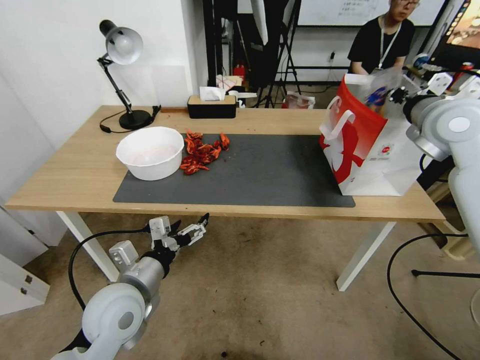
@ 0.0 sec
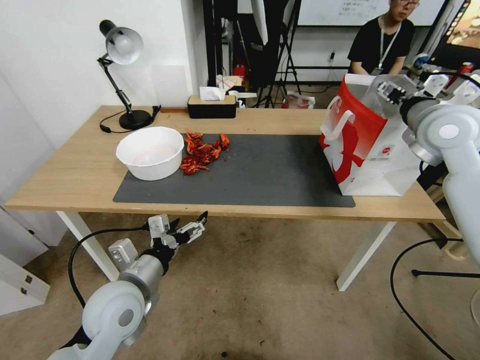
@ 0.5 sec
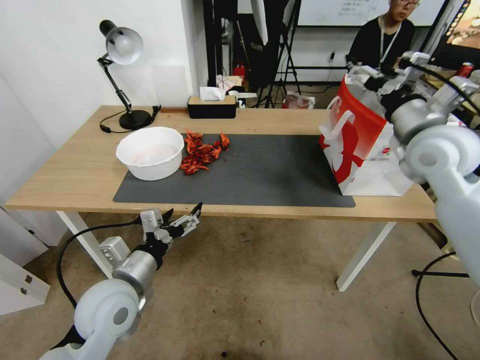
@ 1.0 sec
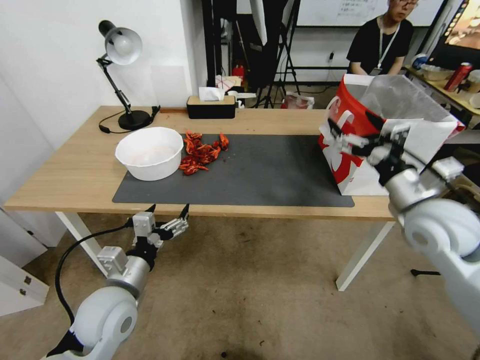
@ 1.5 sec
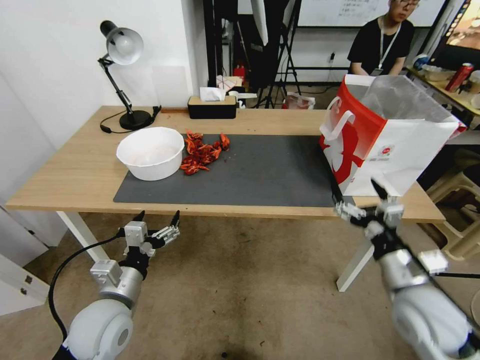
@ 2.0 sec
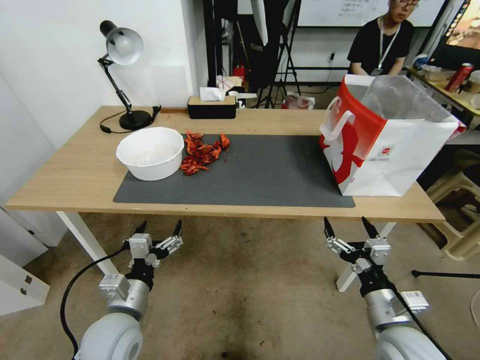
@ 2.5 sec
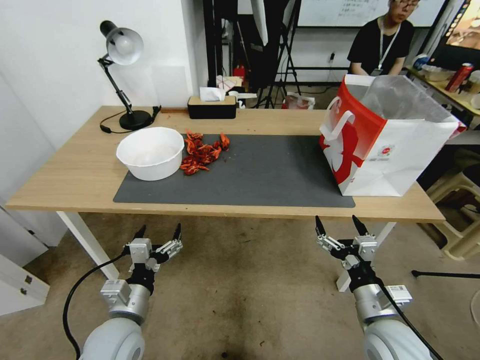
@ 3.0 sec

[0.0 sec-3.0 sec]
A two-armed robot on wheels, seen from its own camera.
Task of the whole recording: Close the takeout container lid, then place the container into the takeout bag.
0.0 sec to 1.5 sec: The right gripper heads downward and backward, covering approximately 15 cm, and opens its fingers.
1.5 sec to 3.0 sec: The right gripper moves downward and backward, about 25 cm; the left gripper heads downward, covering roughly 5 cm.

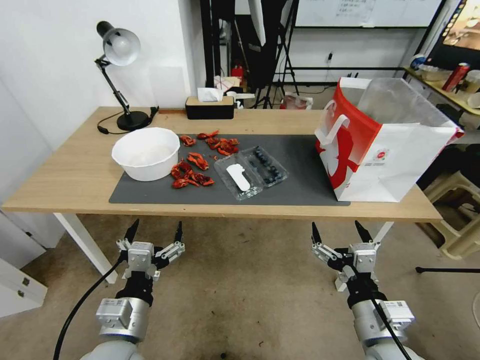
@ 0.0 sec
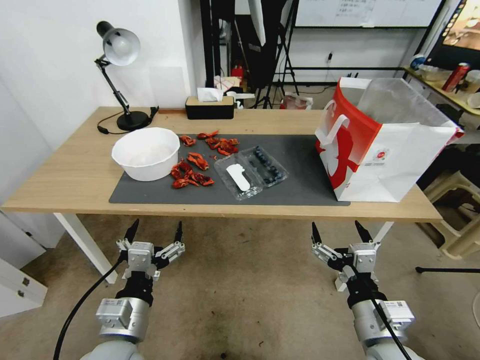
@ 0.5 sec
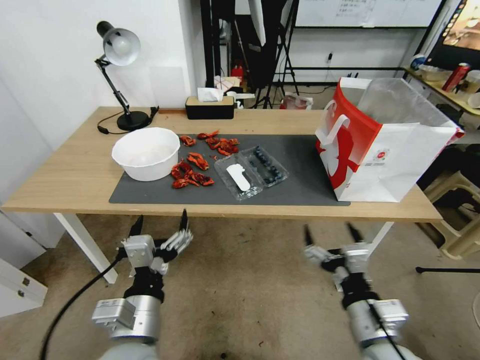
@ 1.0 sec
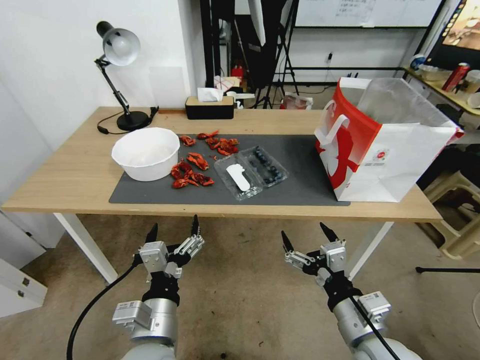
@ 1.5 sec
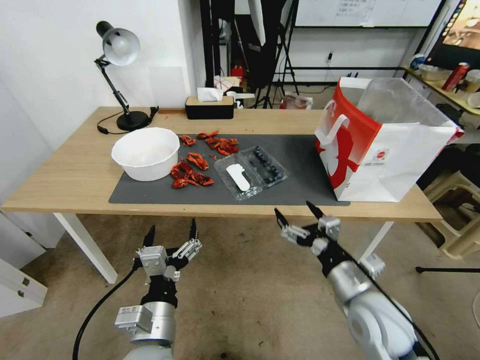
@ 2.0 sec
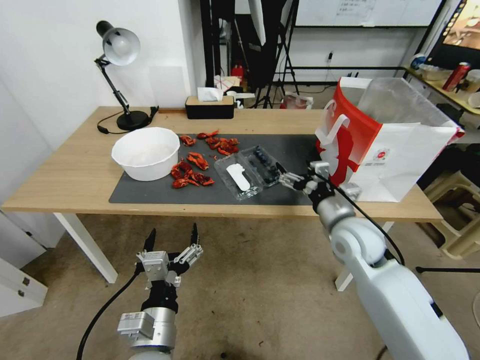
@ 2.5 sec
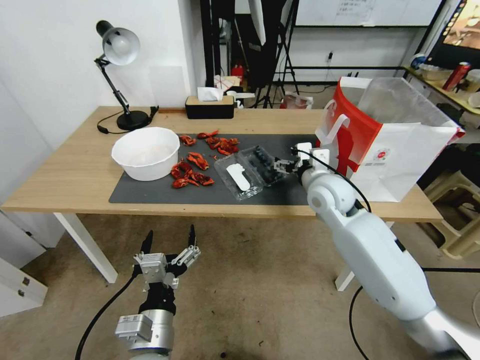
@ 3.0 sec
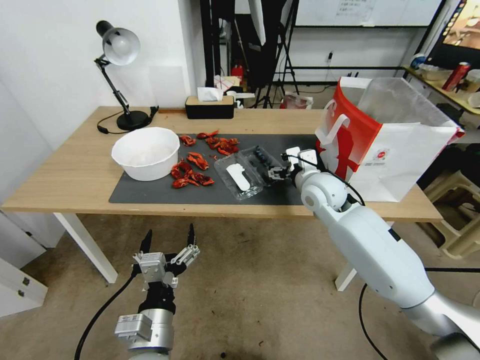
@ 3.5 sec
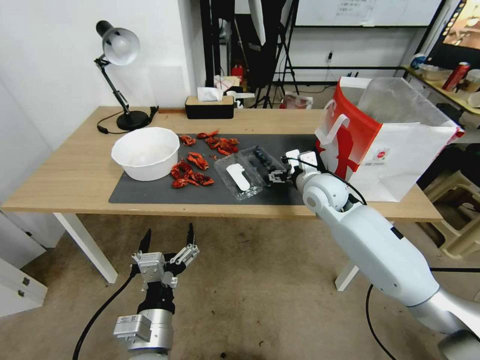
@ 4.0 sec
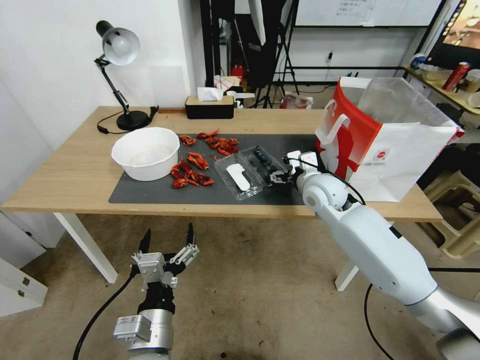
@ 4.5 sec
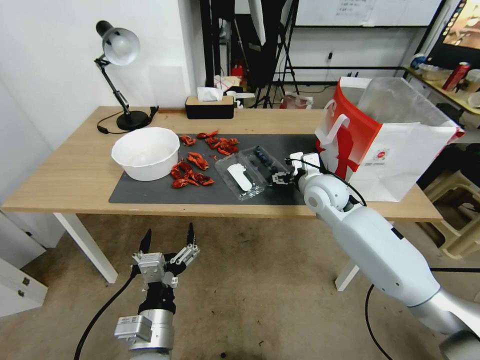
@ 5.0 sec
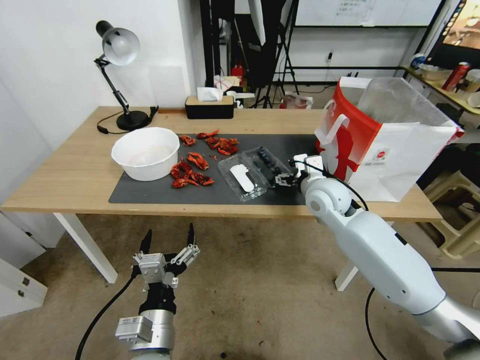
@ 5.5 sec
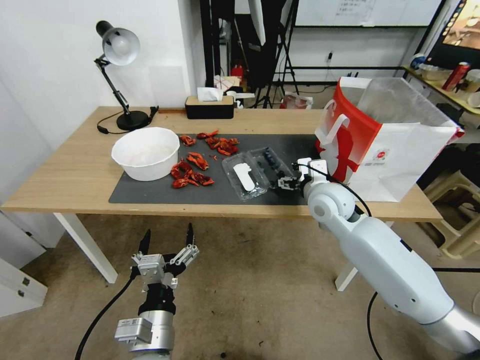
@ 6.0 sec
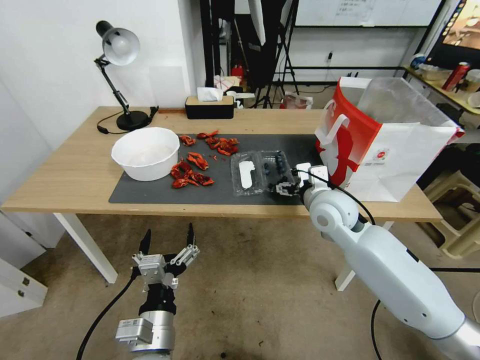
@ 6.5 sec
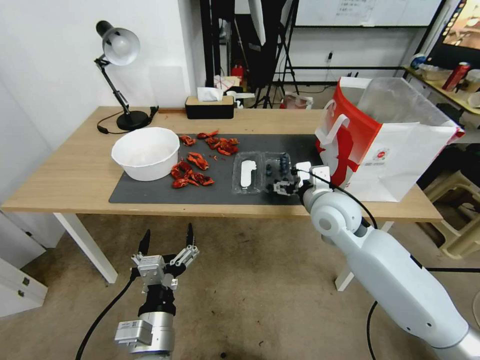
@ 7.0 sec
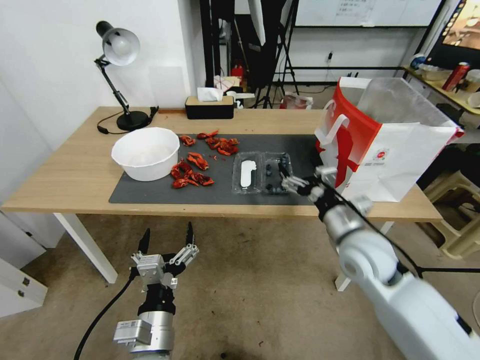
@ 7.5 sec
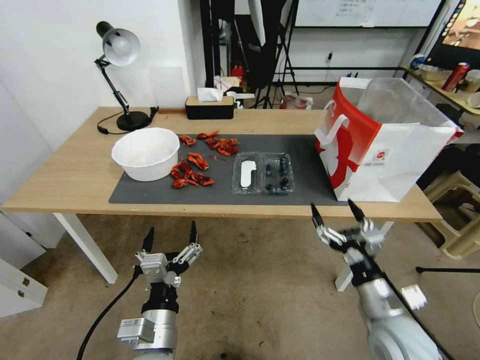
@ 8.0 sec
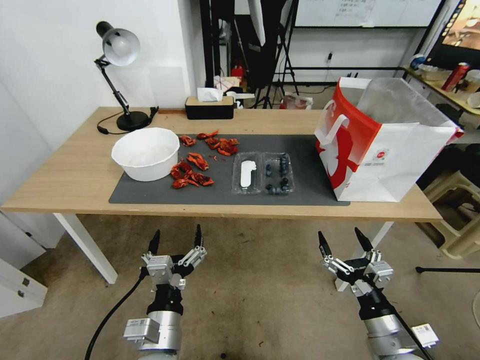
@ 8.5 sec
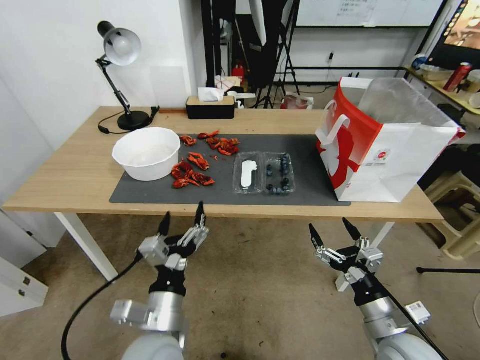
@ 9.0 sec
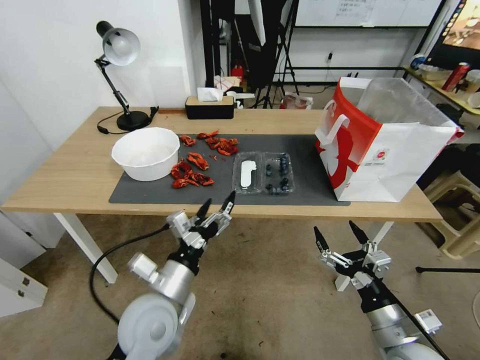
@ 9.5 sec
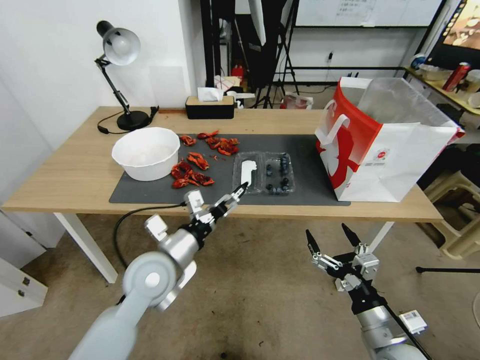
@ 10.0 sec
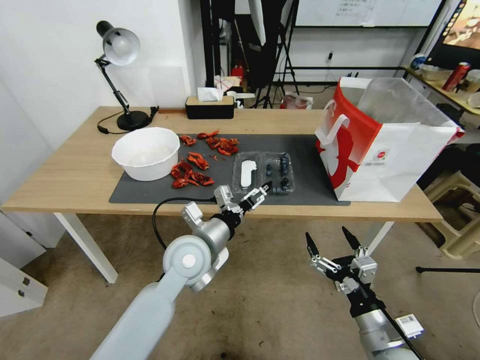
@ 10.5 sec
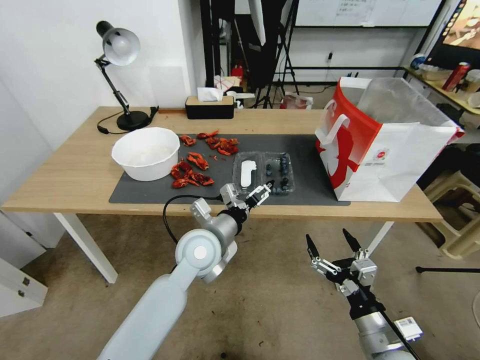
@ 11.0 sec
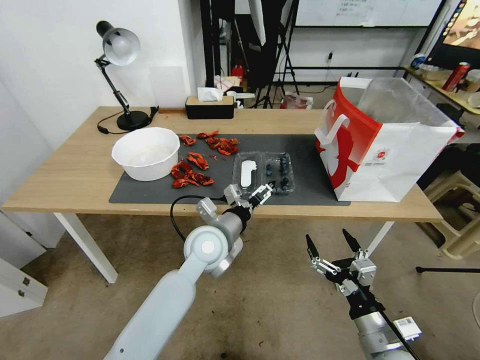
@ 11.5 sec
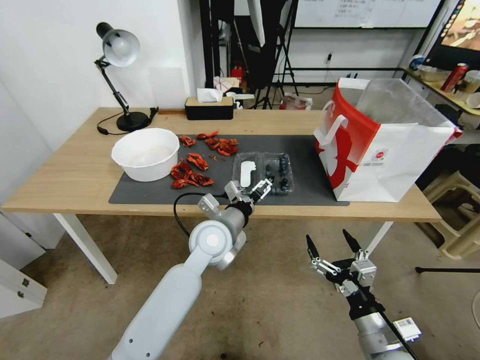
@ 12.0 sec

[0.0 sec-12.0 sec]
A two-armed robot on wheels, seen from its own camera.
Task of the whole recording: Close the takeout container lid, then place the container into the takeout bag.
2.0 sec to 4.0 sec: The right gripper goes some 25 cm forward.
4.0 sec to 6.0 sec: The grippers make only small movements.
6.0 sec to 8.0 sec: The right gripper travels backward and downward by about 25 cm.
8.0 sec to 10.0 sec: The right gripper shifts approximately 5 cm backward. Meanwhile the left gripper is displaced forward by roughly 15 cm.
10.0 sec to 12.0 sec: The left gripper is displaced to the right and forward by some 15 cm.

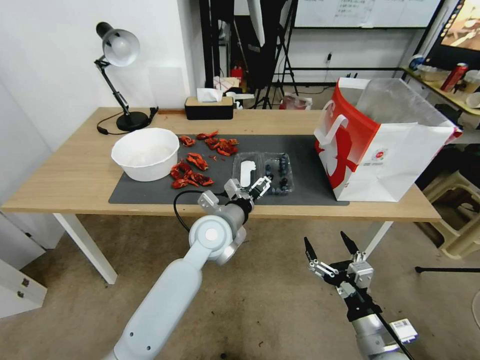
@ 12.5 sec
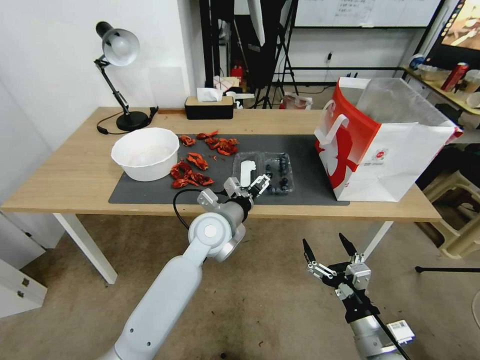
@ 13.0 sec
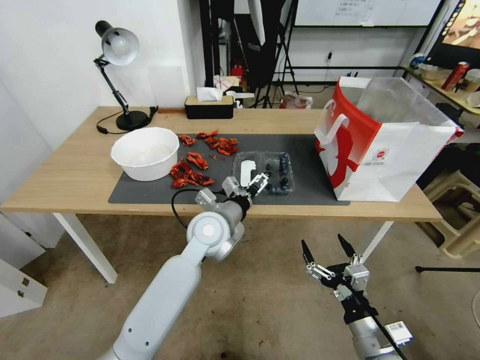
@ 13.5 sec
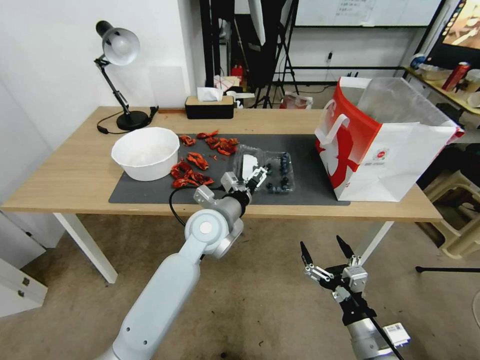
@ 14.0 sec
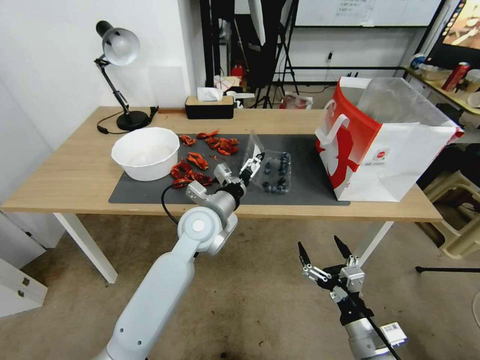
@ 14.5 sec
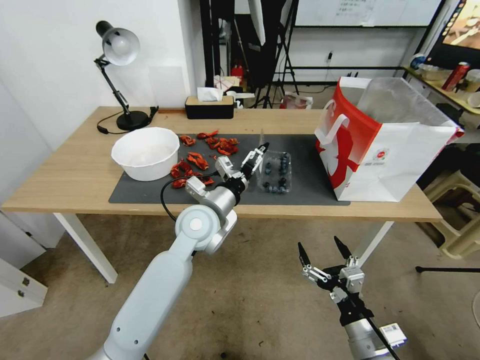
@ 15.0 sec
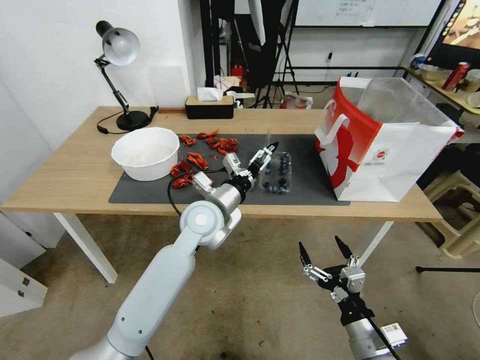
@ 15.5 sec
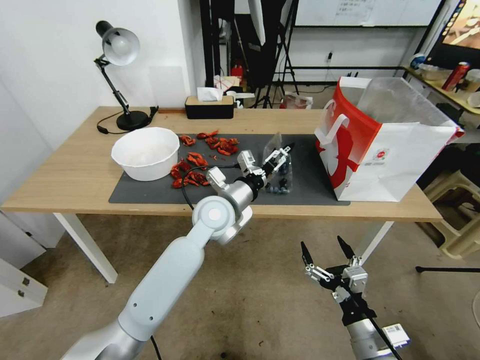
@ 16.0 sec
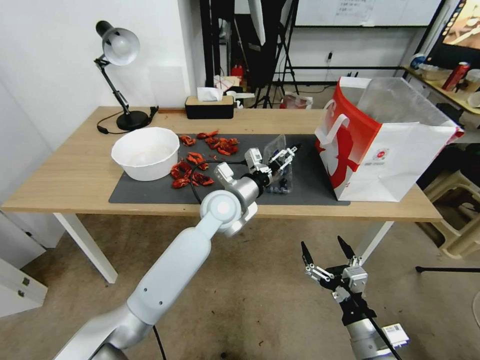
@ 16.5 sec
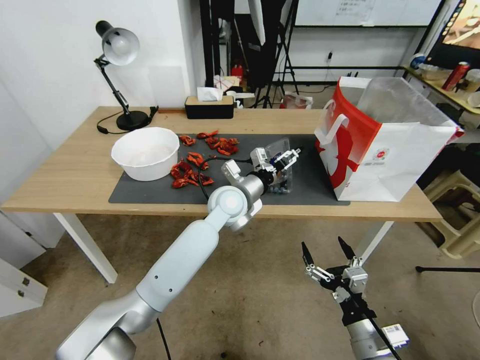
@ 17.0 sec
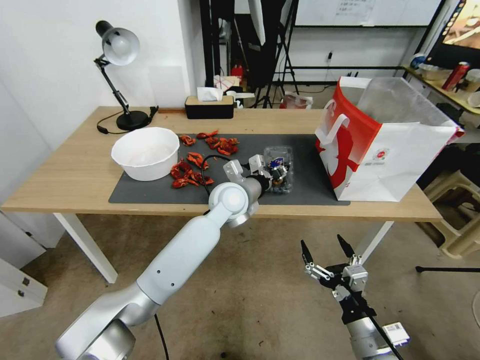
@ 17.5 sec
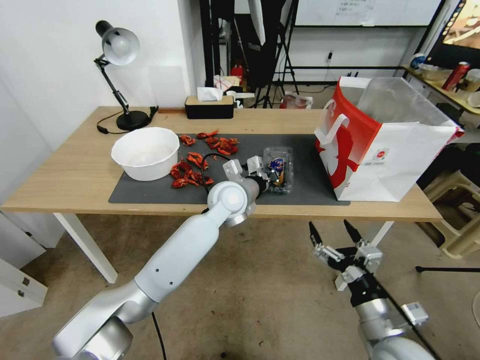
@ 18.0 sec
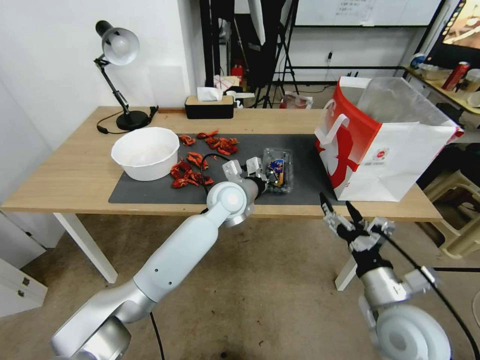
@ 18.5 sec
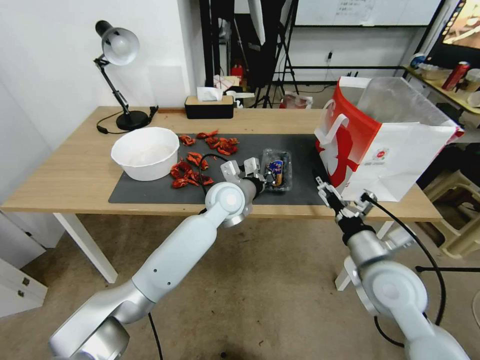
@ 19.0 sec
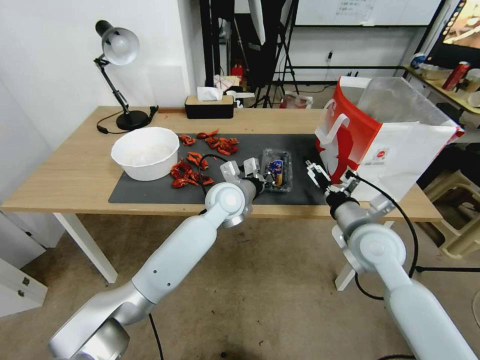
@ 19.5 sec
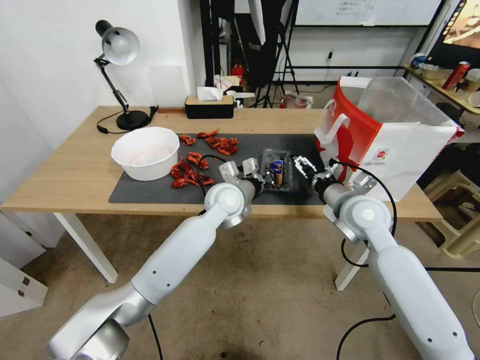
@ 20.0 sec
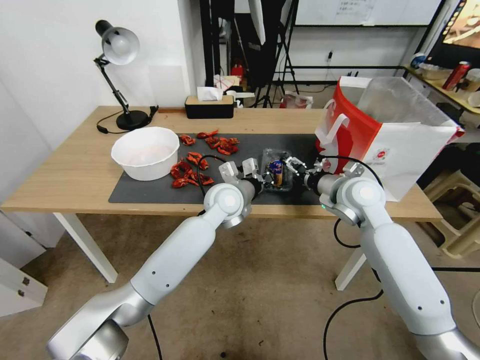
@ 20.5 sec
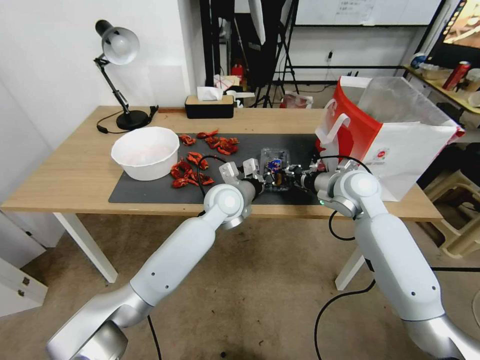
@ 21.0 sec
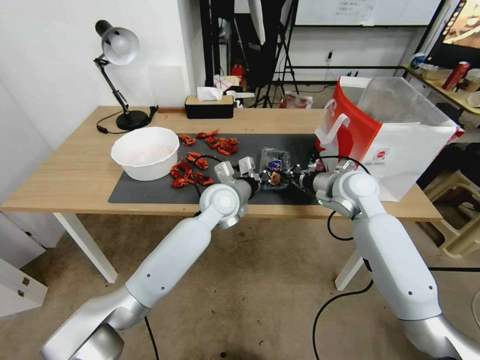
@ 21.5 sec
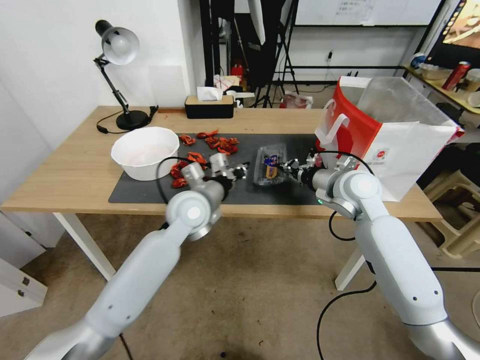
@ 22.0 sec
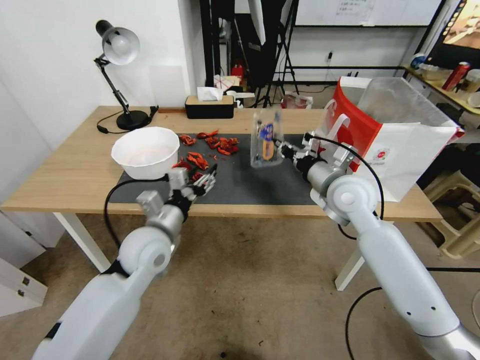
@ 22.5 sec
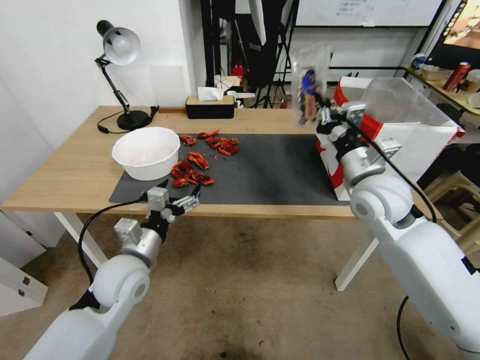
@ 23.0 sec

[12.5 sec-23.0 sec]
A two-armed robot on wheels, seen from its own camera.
Task of the whole recording: Close the takeout container lid, then place the container into the takeout bag.
12.5 sec to 14.5 sec: There are only small adjustments of the grippers.
14.5 sec to 16.5 sec: The left gripper moves approximately 5 cm.
16.5 sec to 19.0 sec: The left gripper closes. Meanwhile the right gripper shifts about 15 cm forward and upward.
19.0 sec to 21.0 sec: The right gripper goes about 20 cm forward, and closes.
21.0 sec to 23.0 sec: The right gripper goes some 5 cm backward. The left gripper moves to the left and backward, some 25 cm, and opens up.
